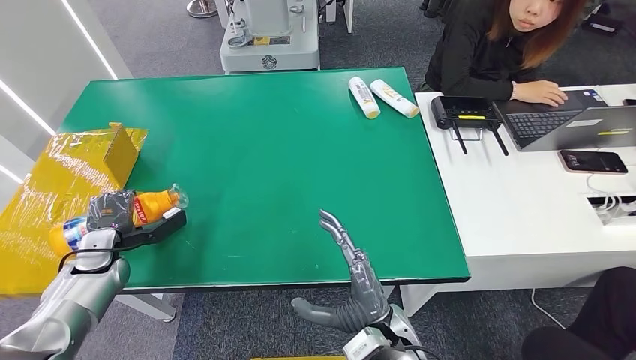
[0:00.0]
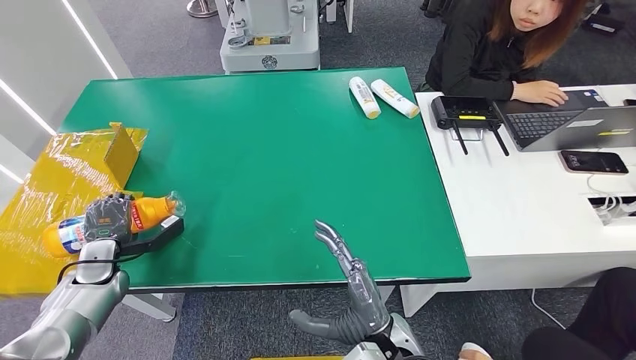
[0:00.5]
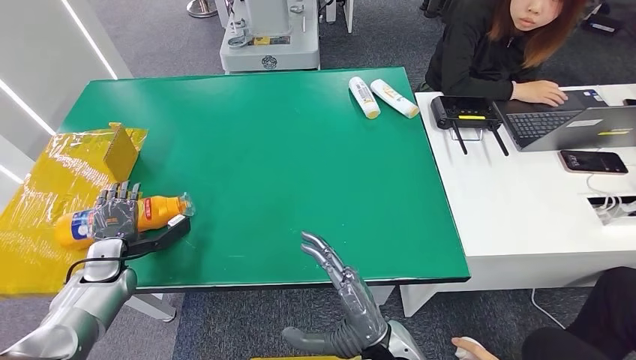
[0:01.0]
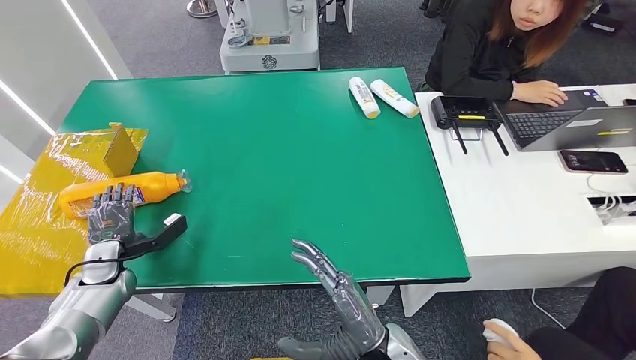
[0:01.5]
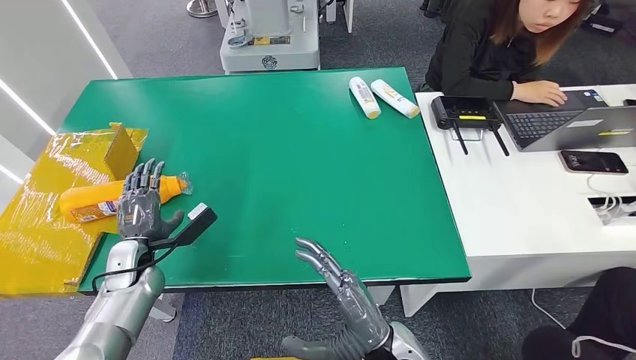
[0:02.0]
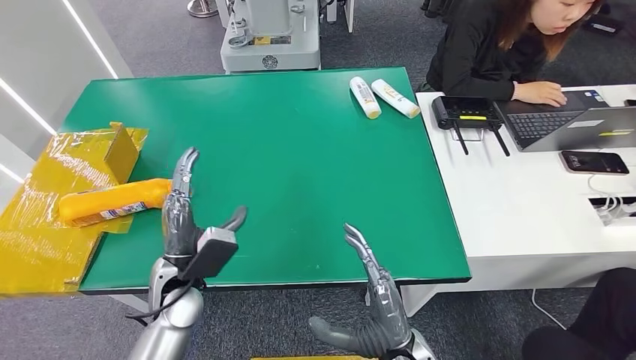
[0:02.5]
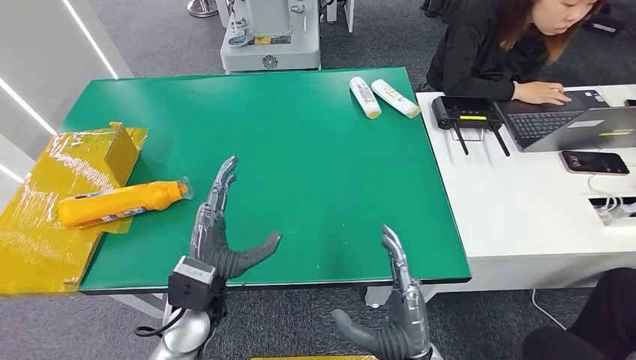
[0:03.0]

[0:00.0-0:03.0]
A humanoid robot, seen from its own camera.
Step, 0:00.0 to 0:03.0: Turn the bottle to the front side.
0:00.0 to 0:01.5: The hands stay close to where they were, moving slightly.
0:01.5 to 0:03.0: The left hand shifts approximately 25 cm to the right.
